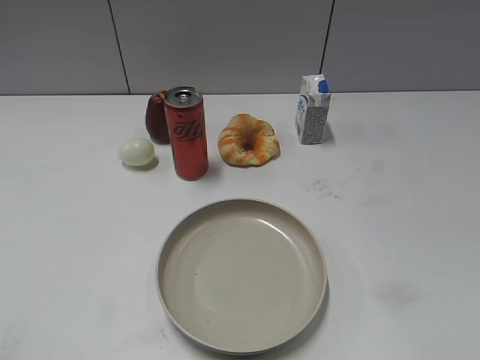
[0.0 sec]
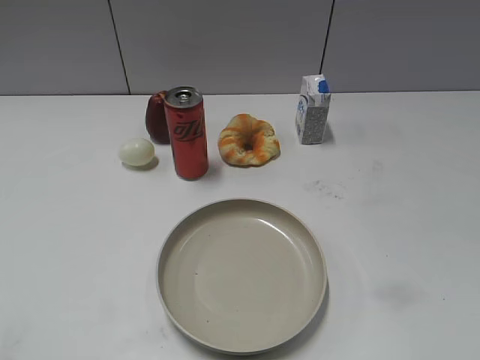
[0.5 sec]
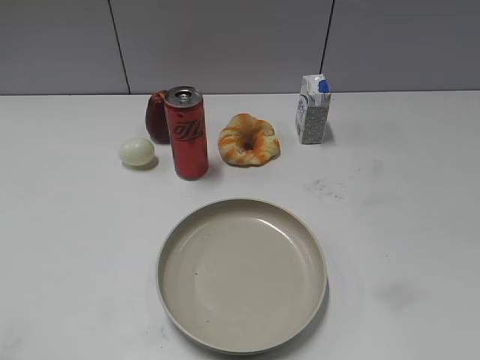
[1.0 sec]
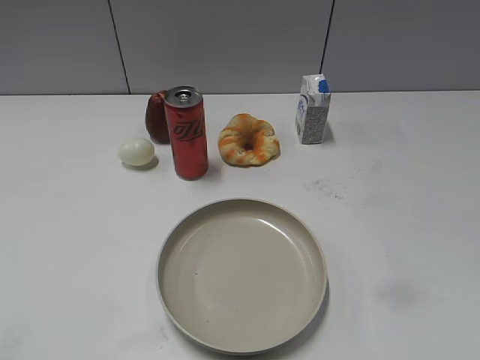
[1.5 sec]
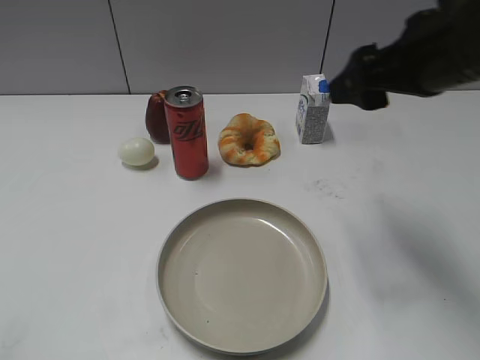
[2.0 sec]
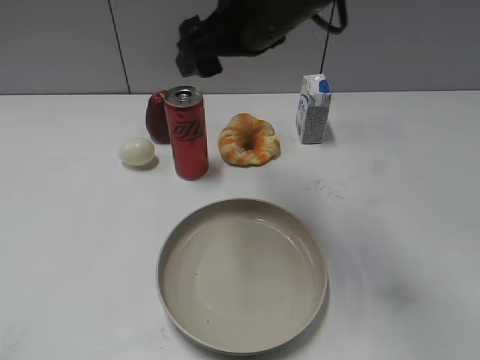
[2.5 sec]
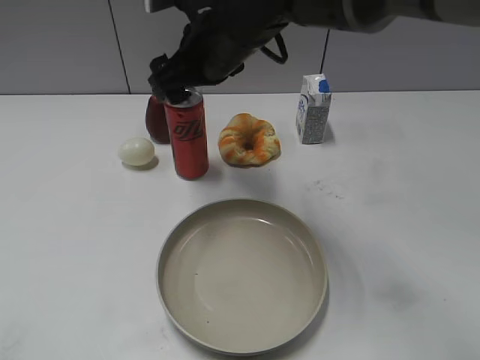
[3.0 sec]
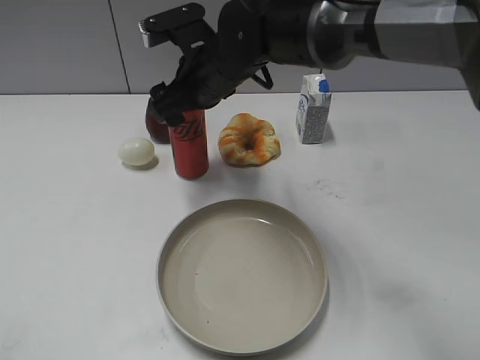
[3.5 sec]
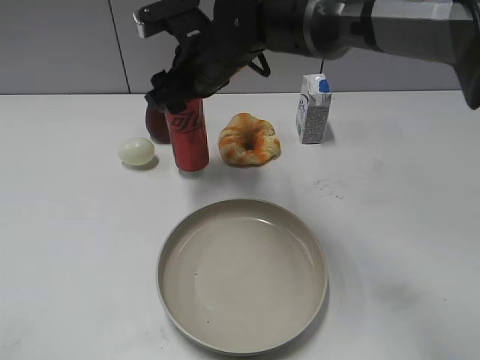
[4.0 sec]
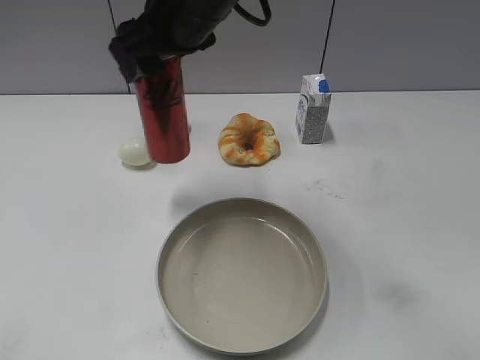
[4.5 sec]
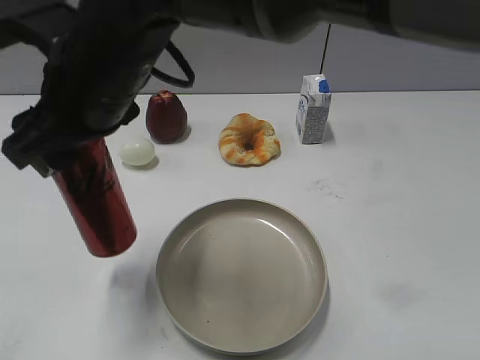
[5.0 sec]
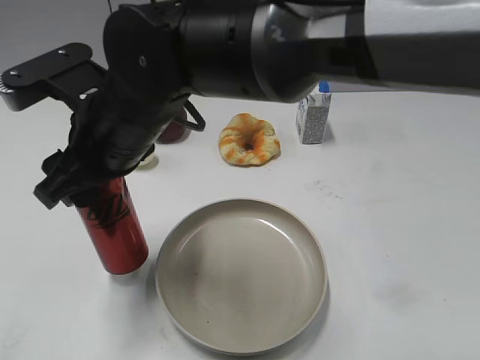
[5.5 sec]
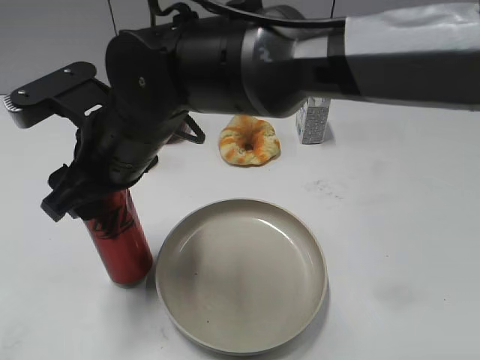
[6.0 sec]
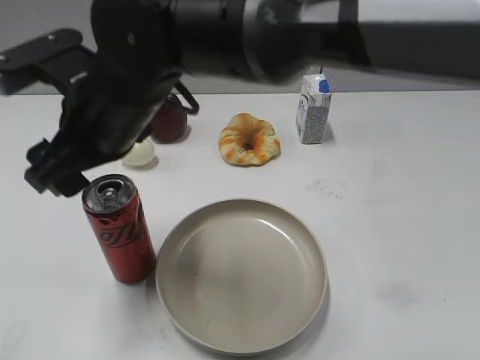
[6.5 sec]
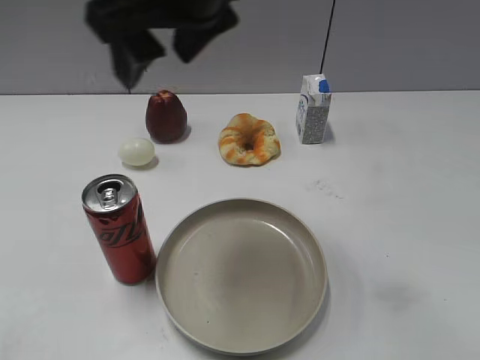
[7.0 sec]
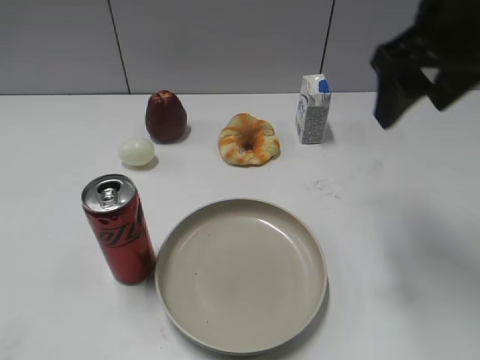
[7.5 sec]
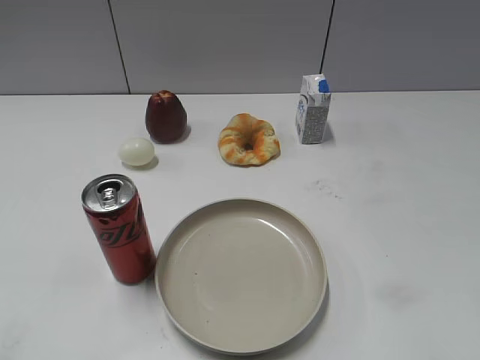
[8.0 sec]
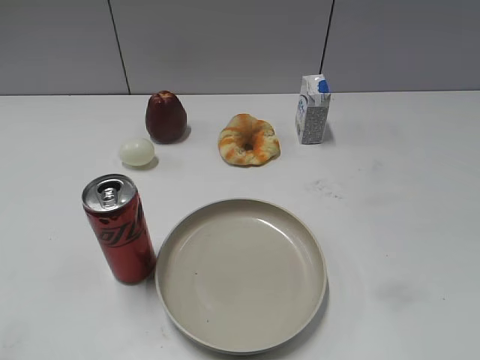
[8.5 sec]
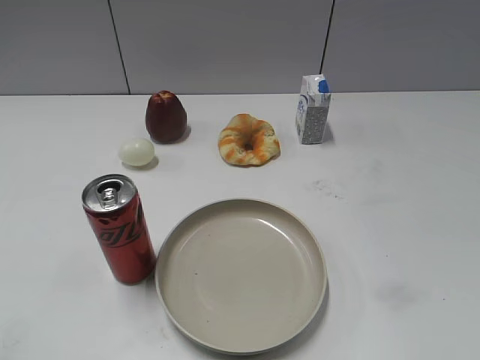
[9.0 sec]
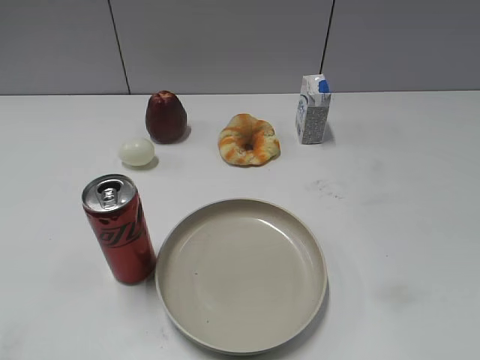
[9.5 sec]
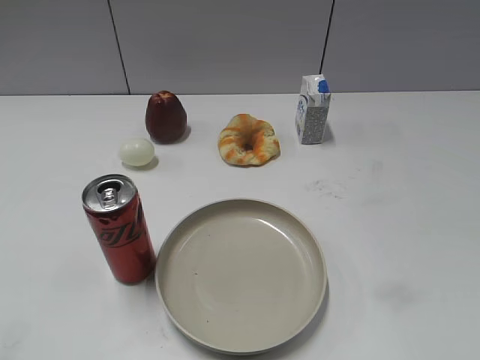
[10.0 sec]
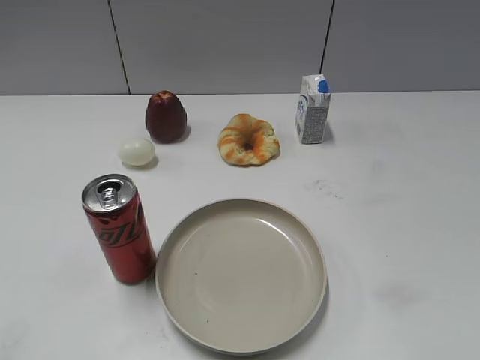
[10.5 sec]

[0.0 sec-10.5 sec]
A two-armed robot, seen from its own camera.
Step, 1.0 sec to 3.5 sec: Grasp the cola with right gripper.
Step, 4.0 sec to 6.5 sec: Place the cola on the table with right gripper.
2.0 sec to 4.0 sec: The right gripper travels to the left, forward and downward by approximately 25 cm, and closes its fingers.
4.0 sec to 6.5 sec: The right gripper travels backward and to the left by about 15 cm, and opens.
6.5 sec to 8.5 sec: The right gripper moves to the right and backward, roughly 50 cm.
